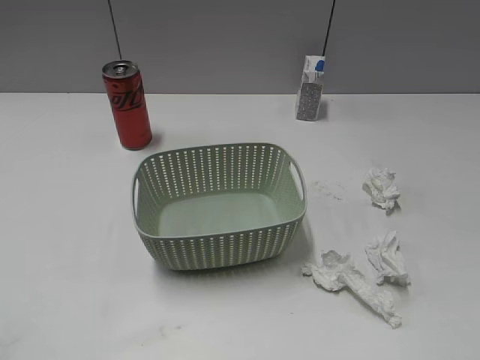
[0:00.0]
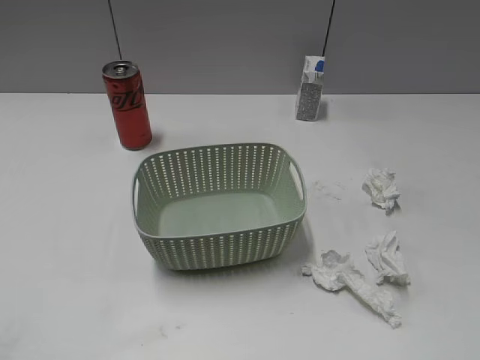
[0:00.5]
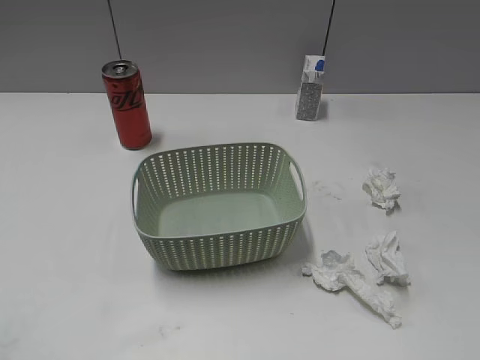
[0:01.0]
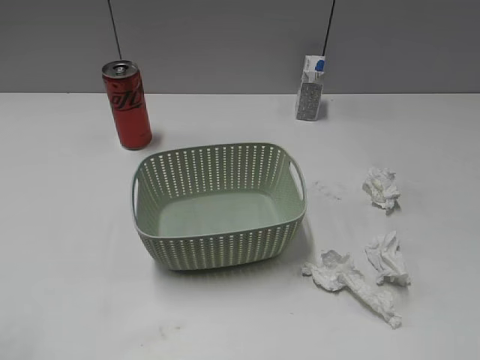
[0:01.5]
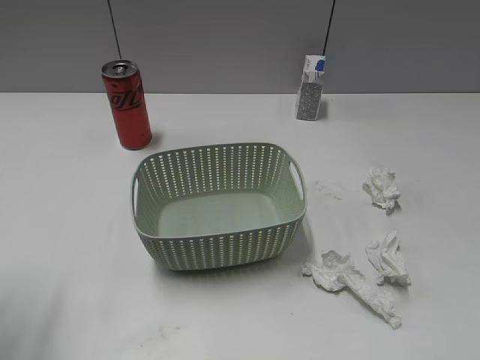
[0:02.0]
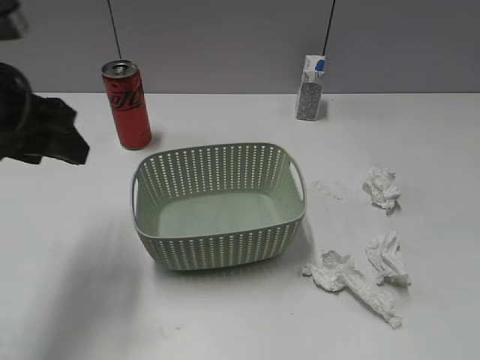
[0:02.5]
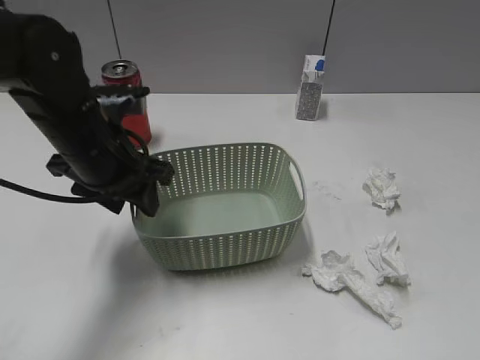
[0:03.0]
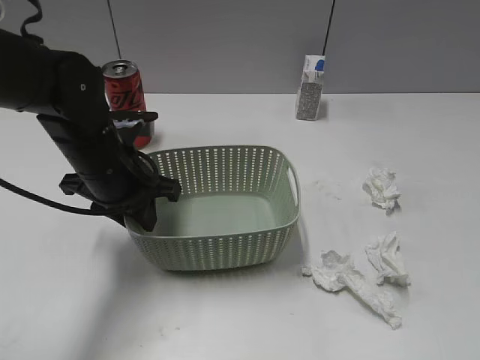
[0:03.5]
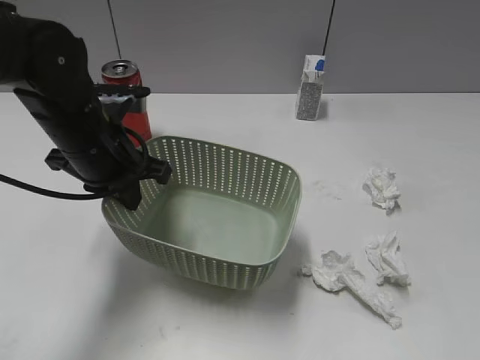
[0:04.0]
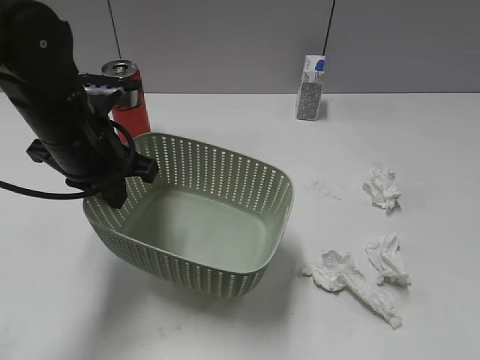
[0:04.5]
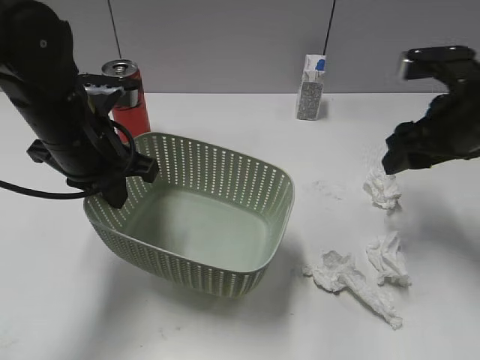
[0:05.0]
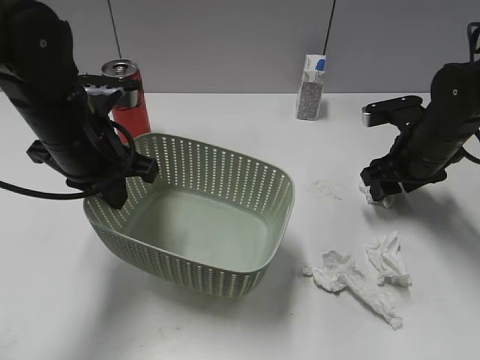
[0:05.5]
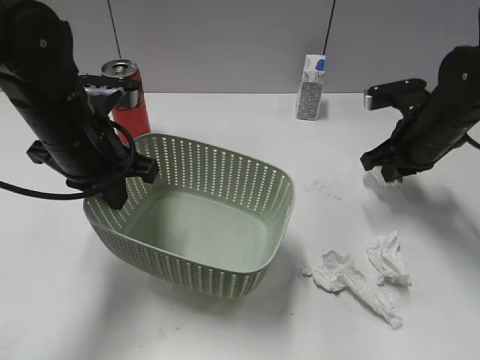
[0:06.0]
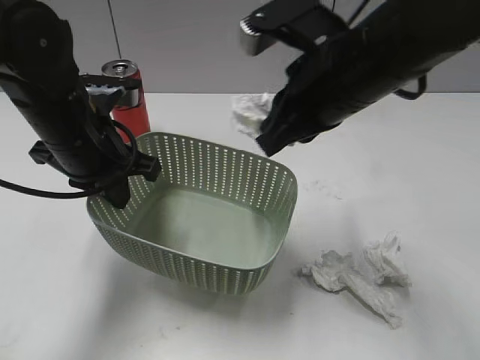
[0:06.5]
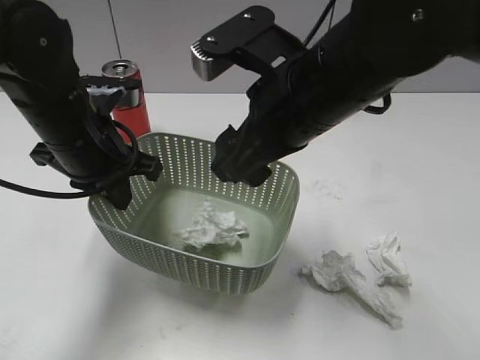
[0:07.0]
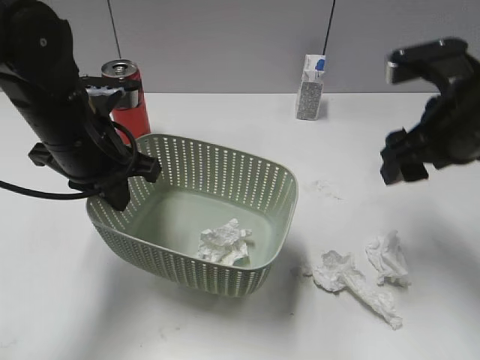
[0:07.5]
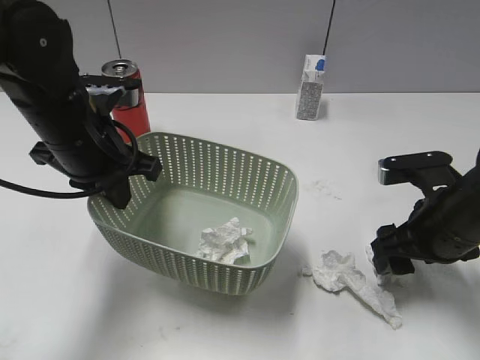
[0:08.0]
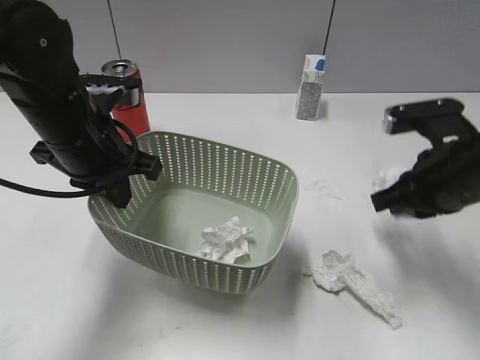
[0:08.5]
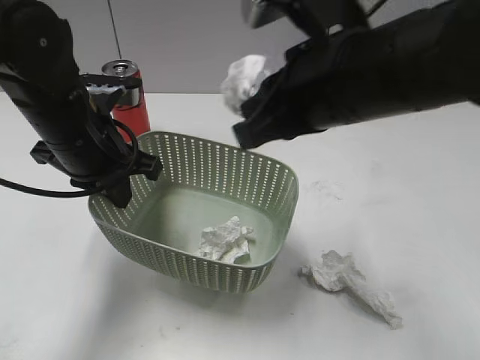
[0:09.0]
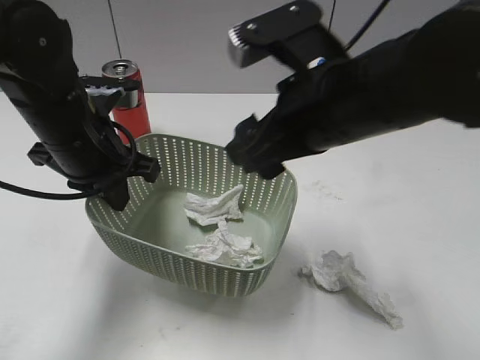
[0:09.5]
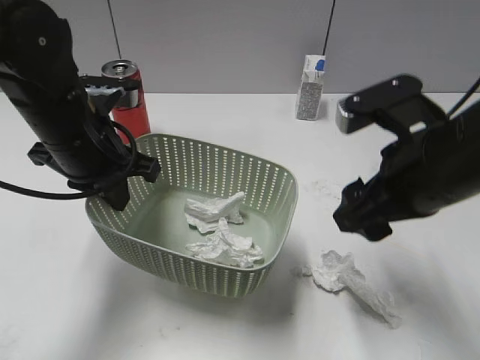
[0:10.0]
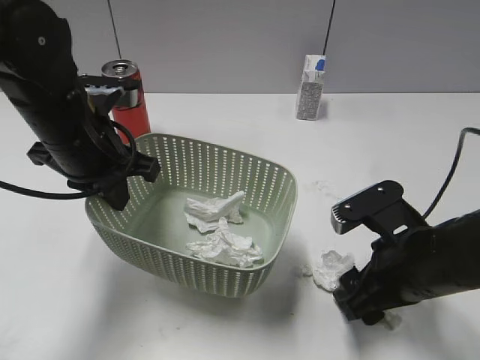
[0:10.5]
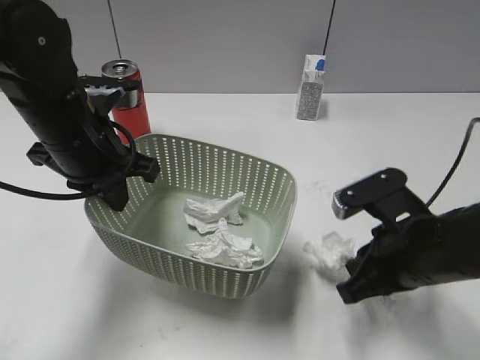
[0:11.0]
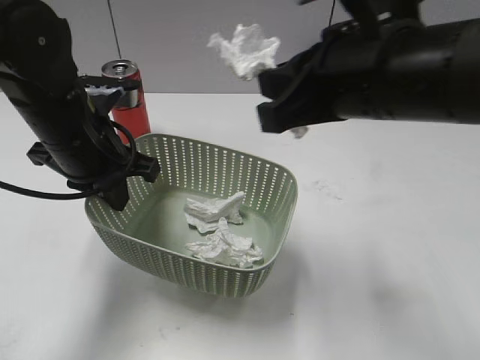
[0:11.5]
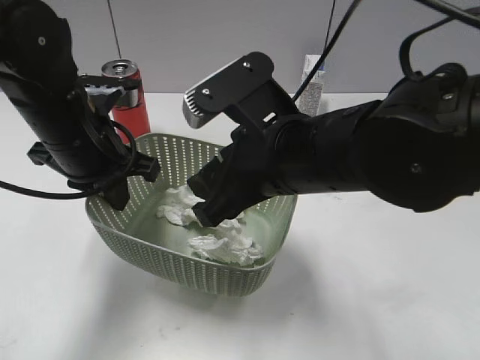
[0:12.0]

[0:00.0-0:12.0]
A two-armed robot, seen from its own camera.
Step, 0:02.5 to 0:03.5: Grasp the basket with left gripper.
Step, 0:05.0 to 0:06.0: Grasp the waste paper with right gripper.
Step, 0:06.5 to 0:07.0: Place the waste paper in the basket with right gripper.
Step, 0:07.5 to 0:08.5: Grasp the waste paper with right gripper.
Step, 0:09.5 to 0:11.0: Grasp the waste paper with right gripper.
0:02.0 to 0:04.0: The left gripper travels to the right, forward and downward by some 20 cm, and closes its fingers.
0:04.0 to 0:06.0: The right gripper moves forward, roughly 35 cm, and closes.
0:06.0 to 0:08.0: The right gripper moves backward, some 10 cm, travels to the left and back again, about 15 cm each way, and opens.
0:08.0 to 0:10.0: The right gripper goes approximately 10 cm upward and to the left, and closes, then opens again.
0:10.0 to 0:12.0: The right gripper moves up and down over about 15 cm, changing direction 2 times, and closes and opens again.

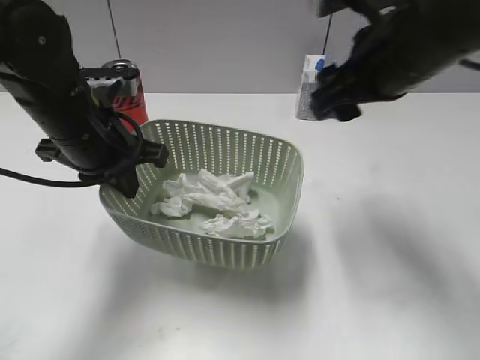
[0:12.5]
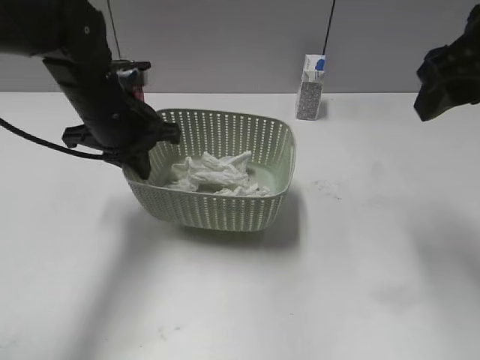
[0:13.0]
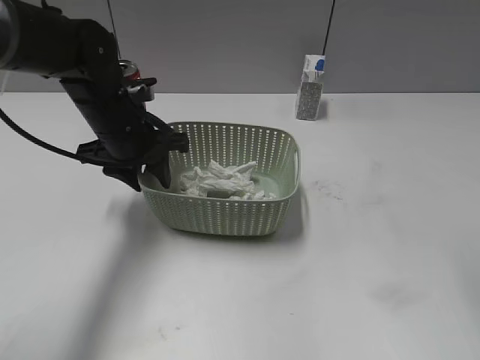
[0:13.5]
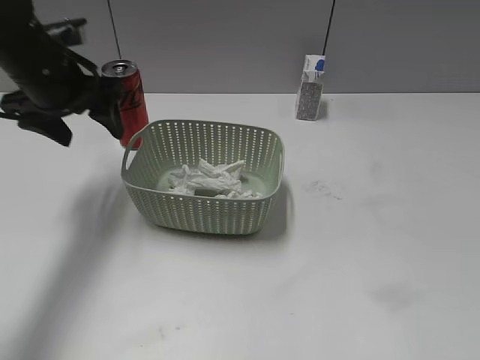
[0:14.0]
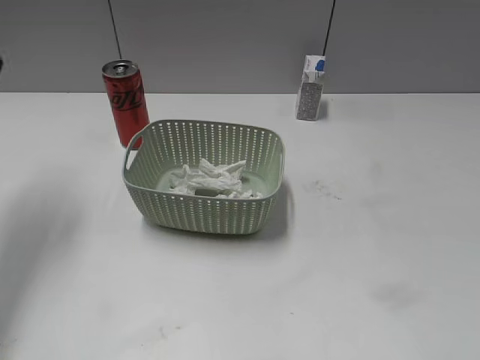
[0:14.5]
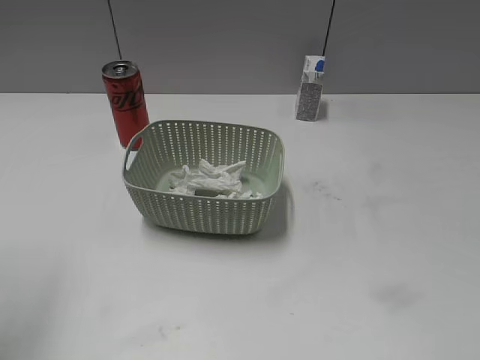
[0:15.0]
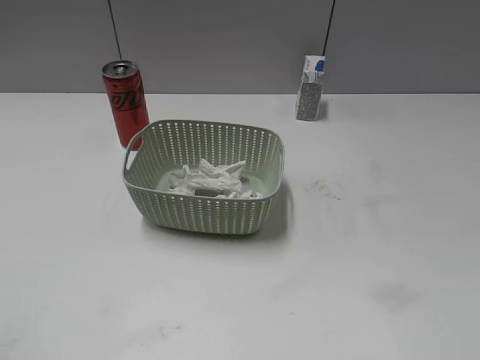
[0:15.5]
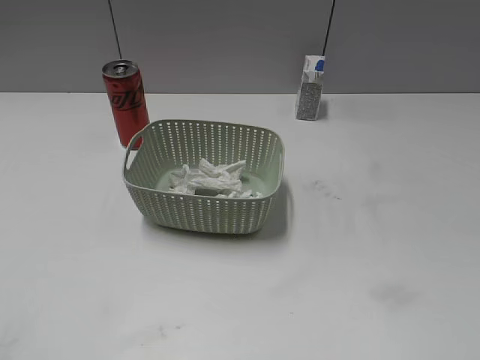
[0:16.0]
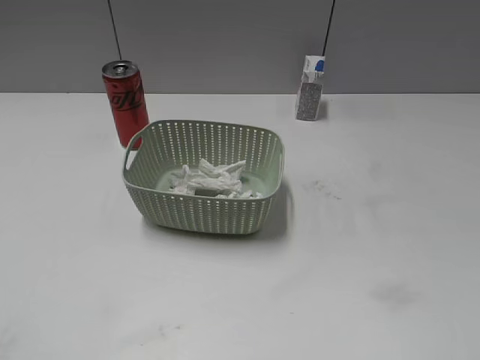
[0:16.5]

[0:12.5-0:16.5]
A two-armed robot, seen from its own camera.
Step, 0:12.5 to 0:13.5: Place the basket on the table with left gripper.
0:12.5 to 0:14.5: The left gripper goes about 20 cm to the left and upward, and opens up. The right gripper is displaced backward and to the right by about 30 cm.
0:14.5 to 0:16.5: The left gripper moves backward, about 35 cm.

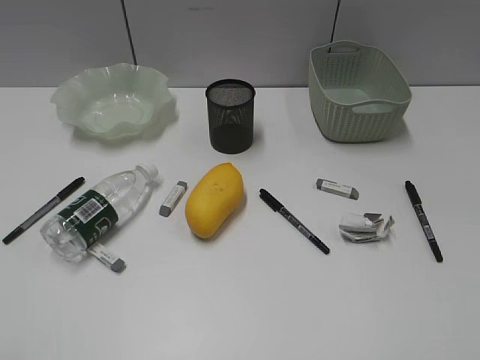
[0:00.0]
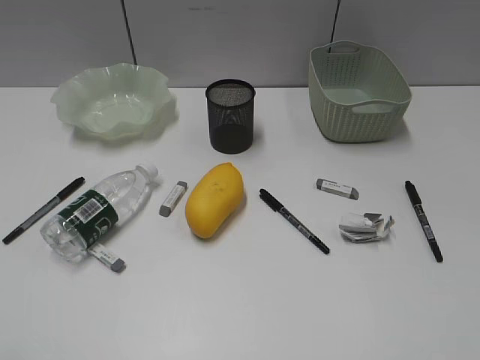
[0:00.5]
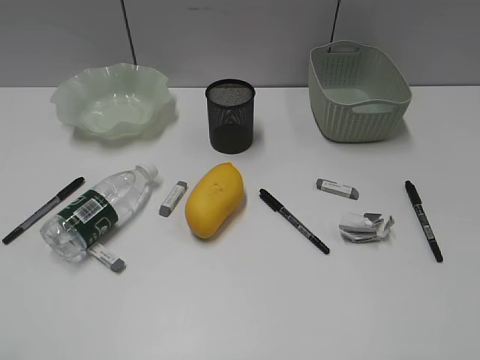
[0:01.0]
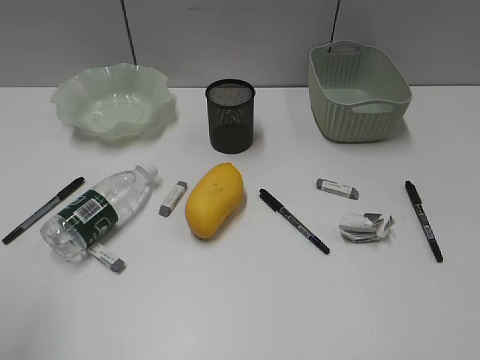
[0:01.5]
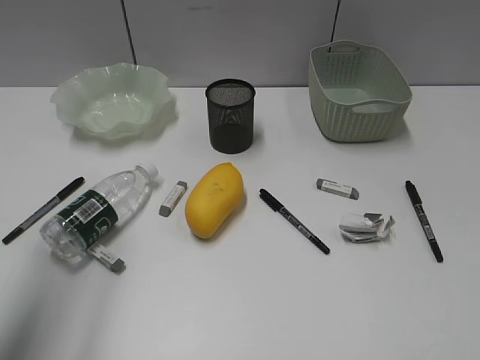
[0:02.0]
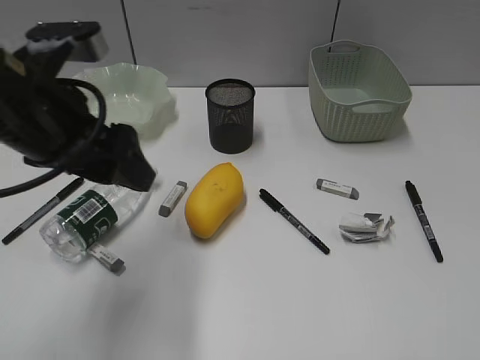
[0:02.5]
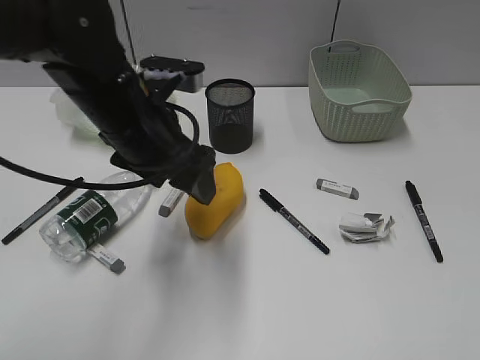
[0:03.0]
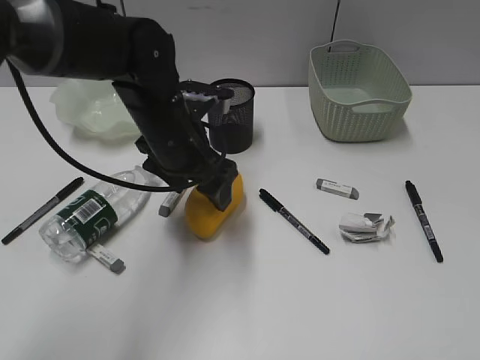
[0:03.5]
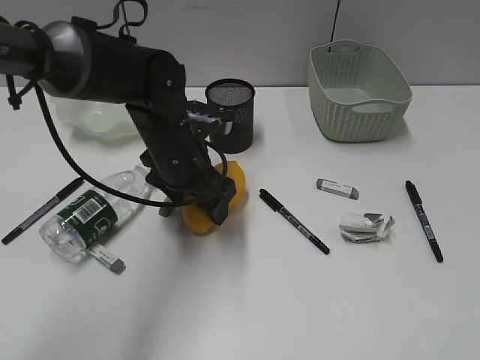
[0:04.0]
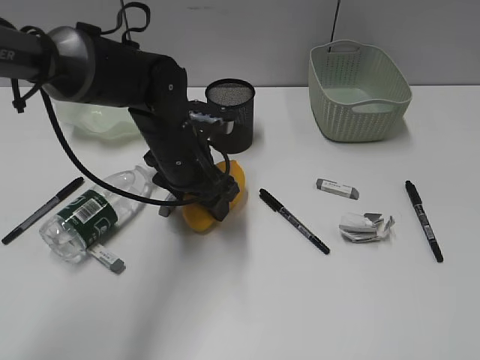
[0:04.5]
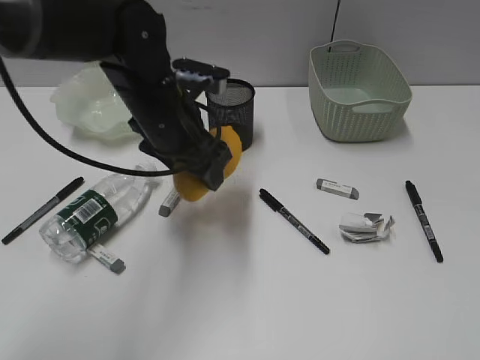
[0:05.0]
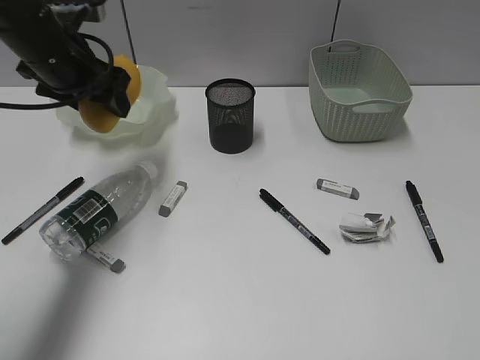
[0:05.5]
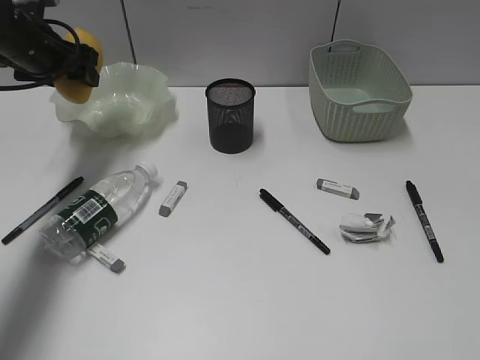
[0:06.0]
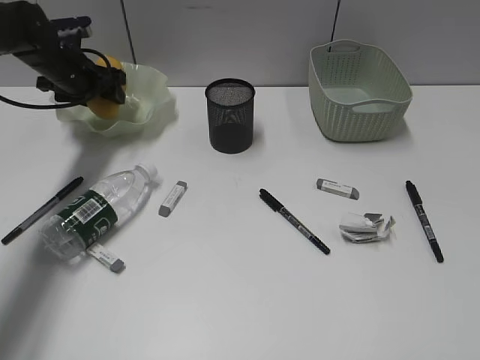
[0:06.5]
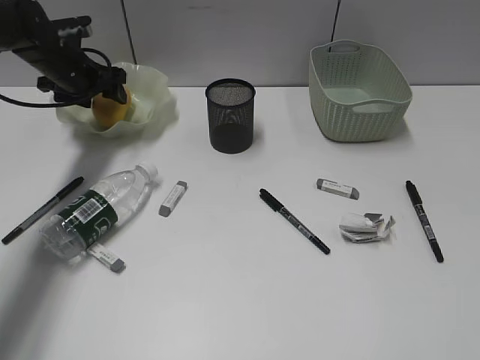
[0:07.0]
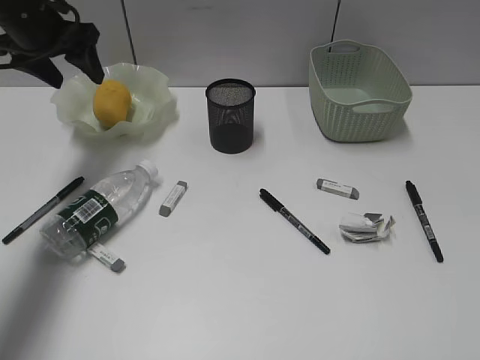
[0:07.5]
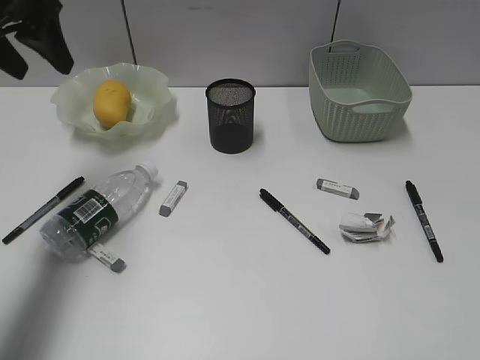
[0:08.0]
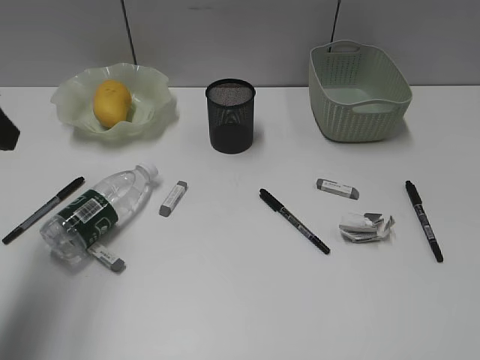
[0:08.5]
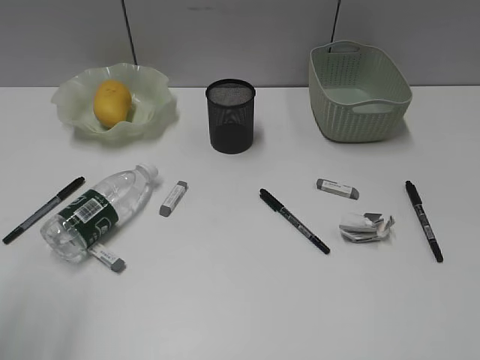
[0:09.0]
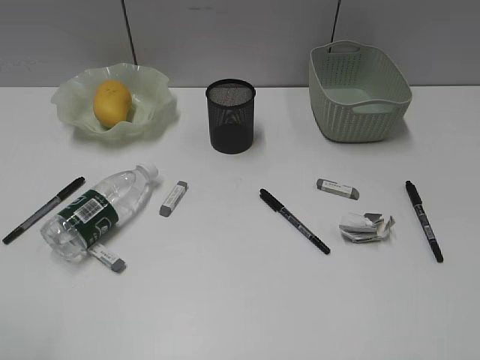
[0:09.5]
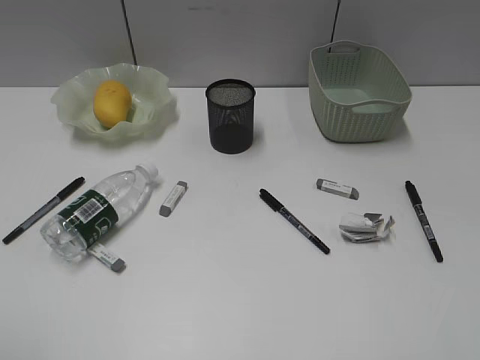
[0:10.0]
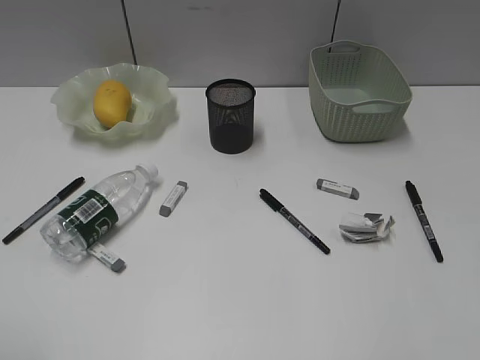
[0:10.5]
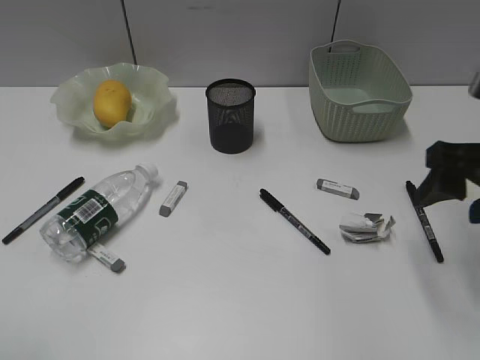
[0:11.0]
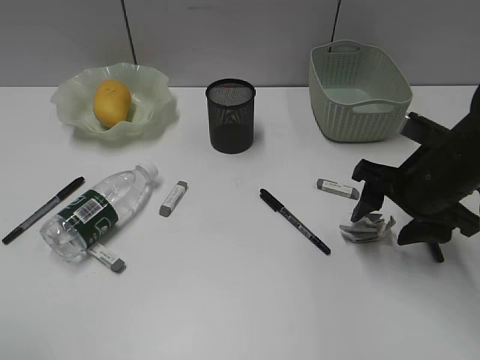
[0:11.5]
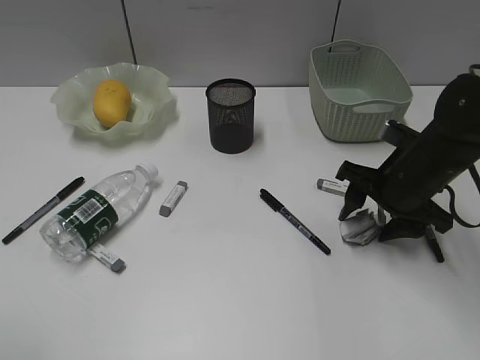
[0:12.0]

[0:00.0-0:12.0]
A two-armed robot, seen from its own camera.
Step, 0:01.0 to 0:04.5: Grasp the mango with left gripper.
Step, 0:05.0 to 0:07.0: Place the mango in the plate with left gripper.
0:02.0 to 0:04.0: The left gripper heads to the right, downward and forward, covering about 30 cm.
0:04.0 to 0:06.0: The left gripper travels to the left, forward and upward by some 25 cm.
0:06.0 to 0:08.0: The left gripper goes approximately 10 cm upward and backward.
0:08.0 to 0:10.0: The left gripper travels backward by about 35 cm.
0:10.0 to 0:12.0: The right gripper heads forward and downward, covering roughly 35 cm.
